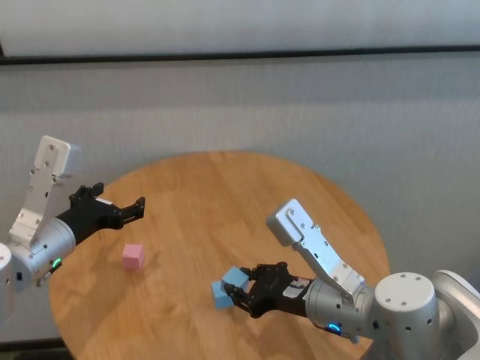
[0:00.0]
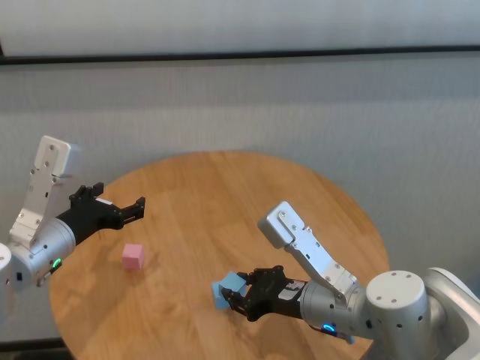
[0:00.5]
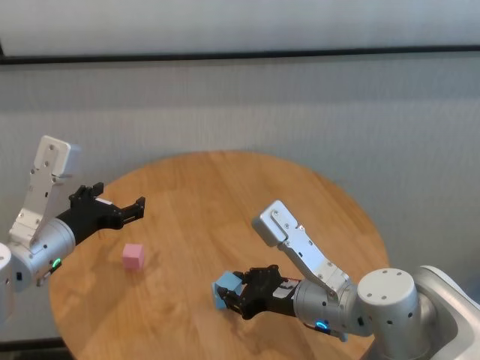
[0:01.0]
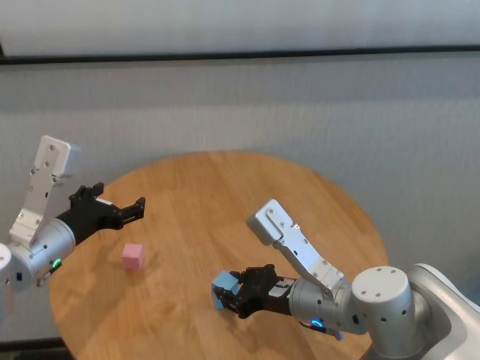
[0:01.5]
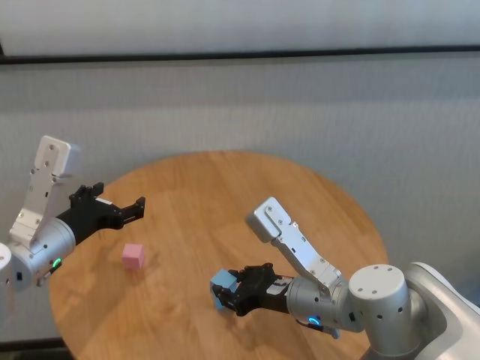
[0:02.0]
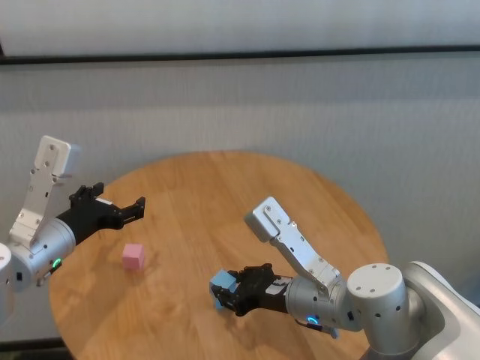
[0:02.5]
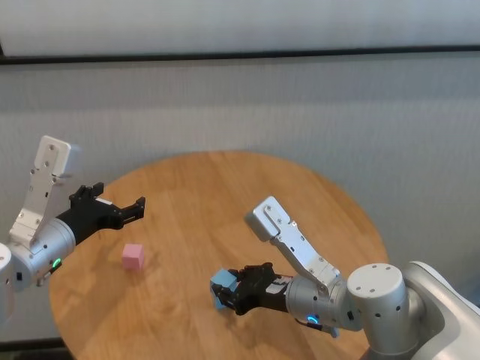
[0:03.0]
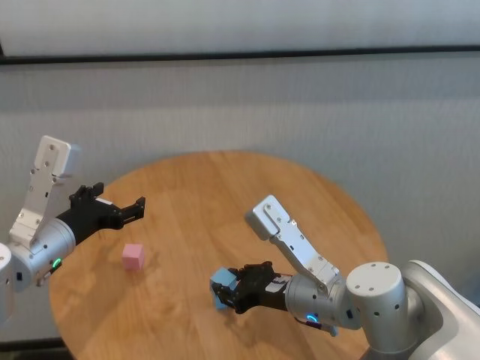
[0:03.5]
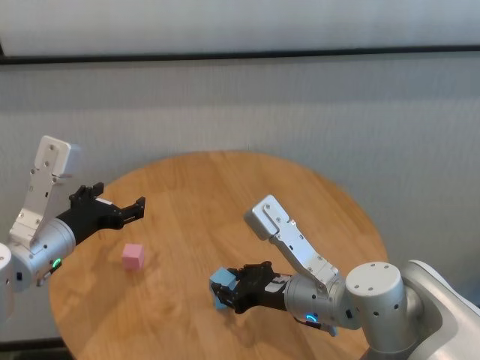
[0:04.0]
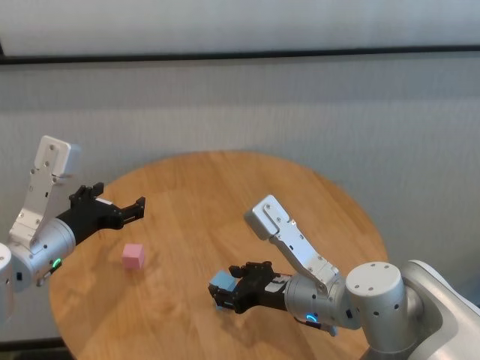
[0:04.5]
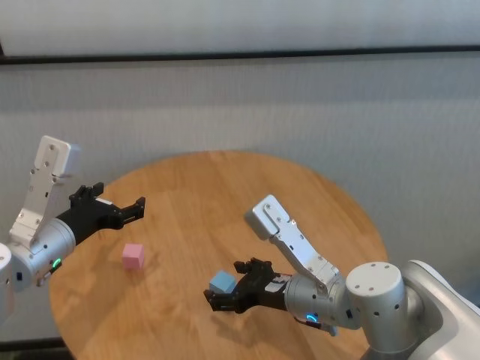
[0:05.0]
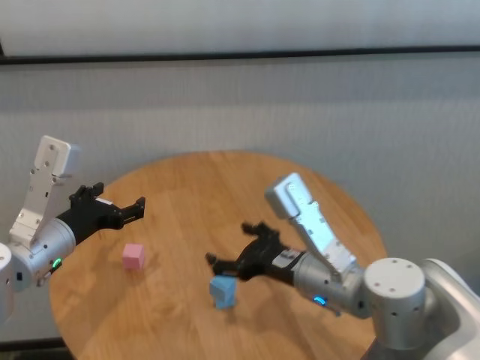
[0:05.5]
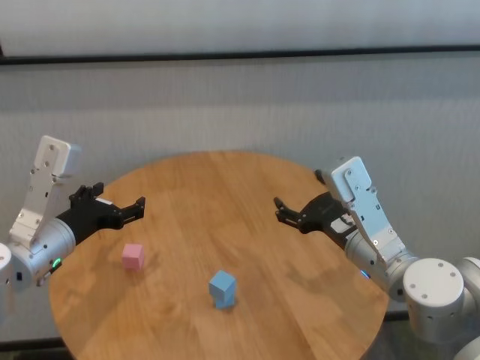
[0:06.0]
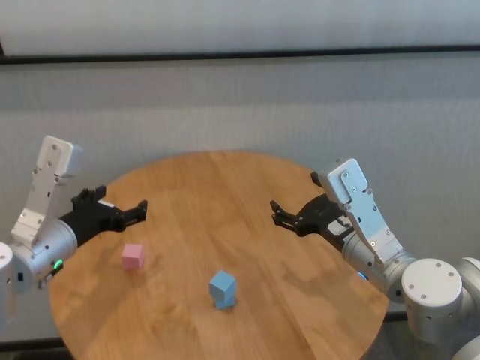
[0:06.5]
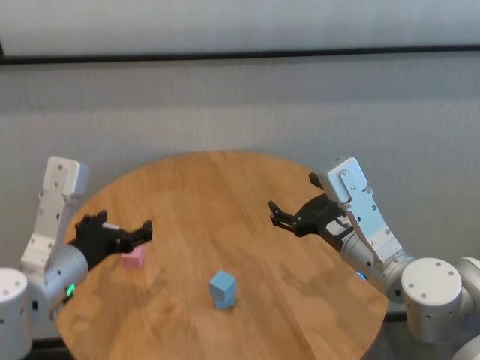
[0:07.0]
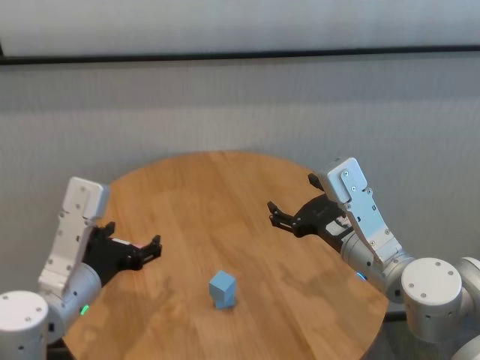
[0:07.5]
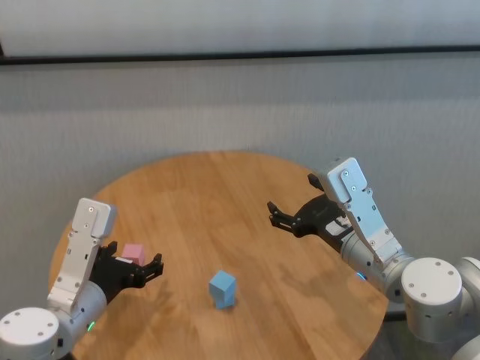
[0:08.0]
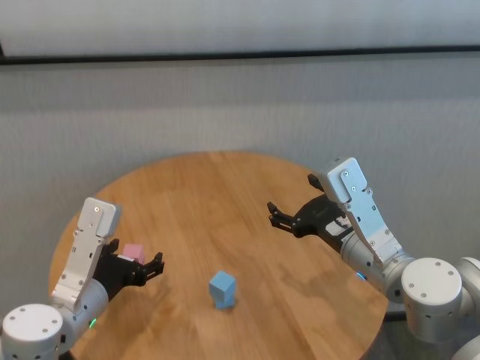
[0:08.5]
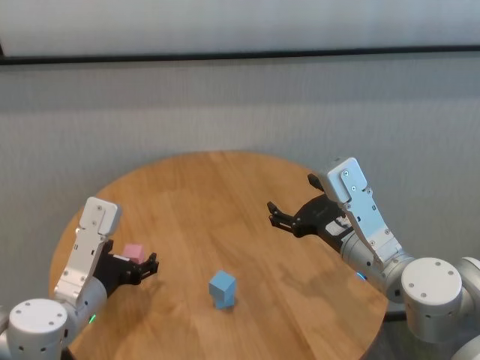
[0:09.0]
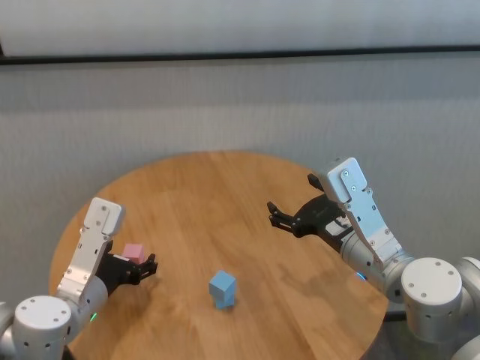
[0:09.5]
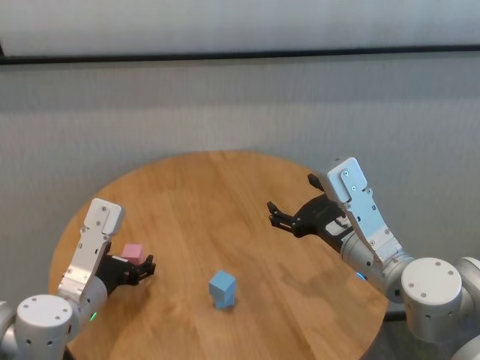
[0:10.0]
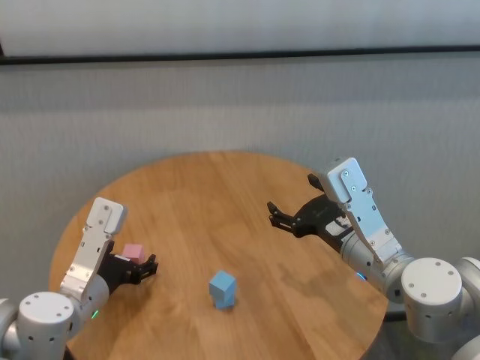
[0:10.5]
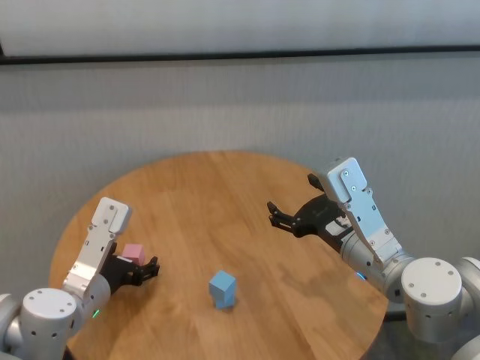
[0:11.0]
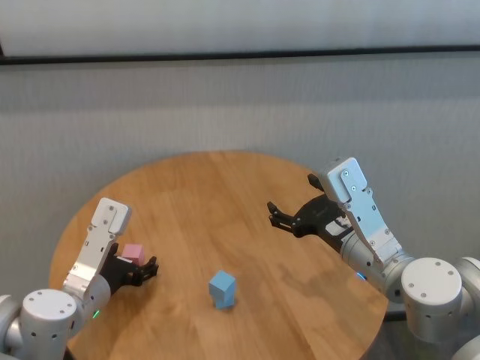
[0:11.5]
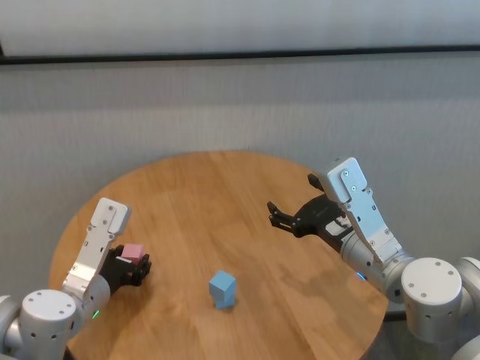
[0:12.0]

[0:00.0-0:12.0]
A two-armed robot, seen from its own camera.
Task of the whole recording: stack building blocks on the table.
Step, 0:00.0 to 0:04.5: Place the blue building block on the blue building blocks with right gripper.

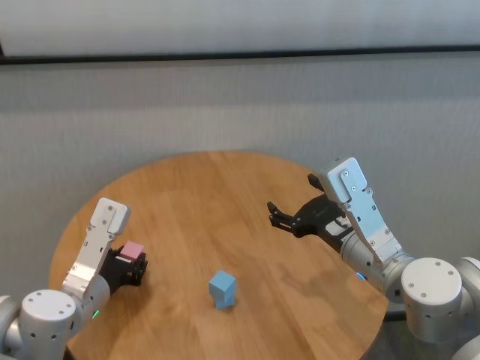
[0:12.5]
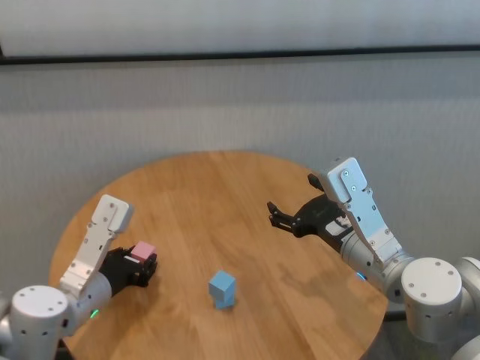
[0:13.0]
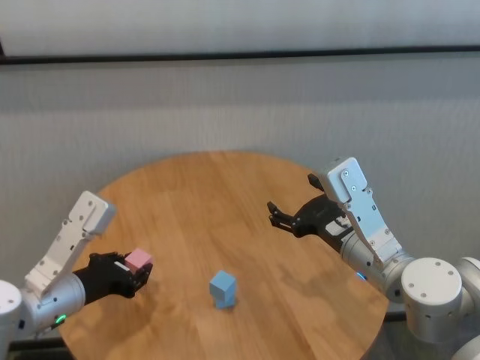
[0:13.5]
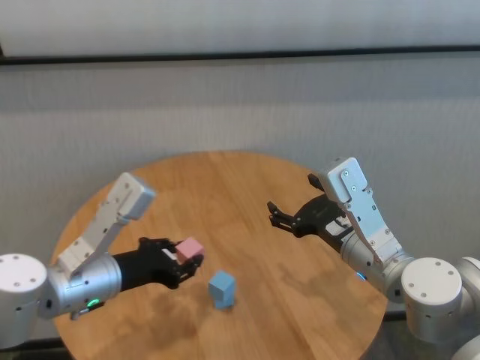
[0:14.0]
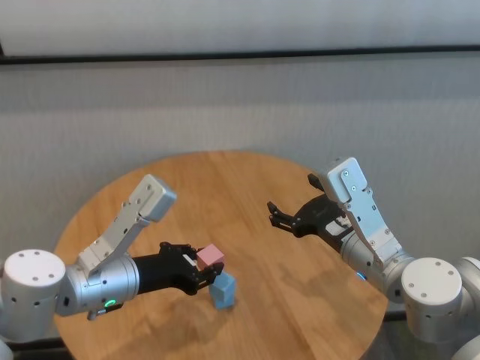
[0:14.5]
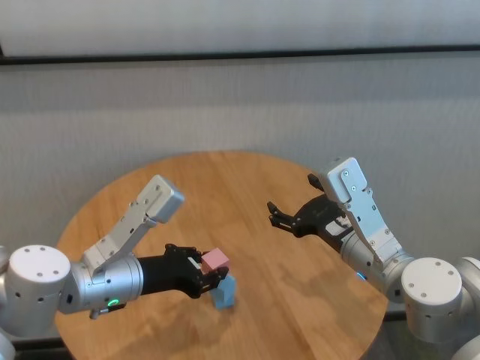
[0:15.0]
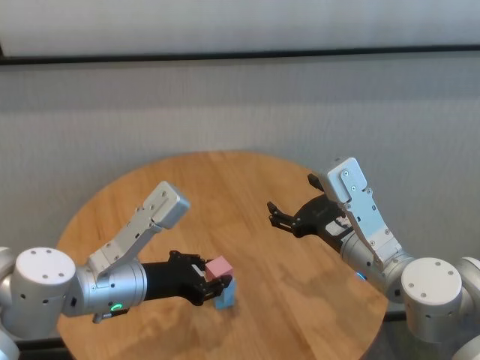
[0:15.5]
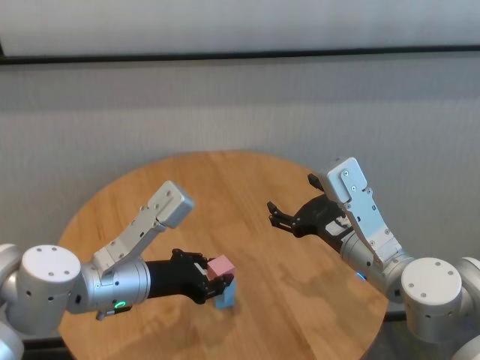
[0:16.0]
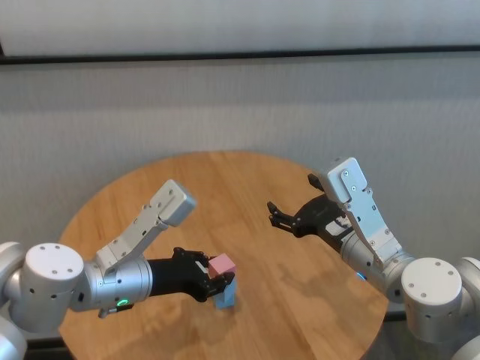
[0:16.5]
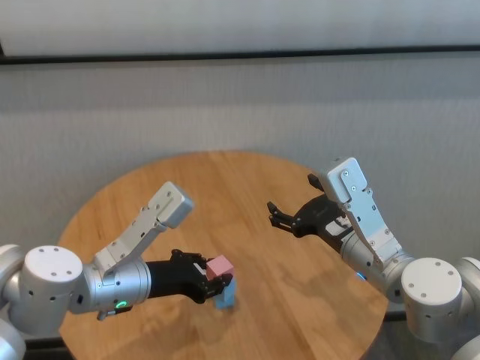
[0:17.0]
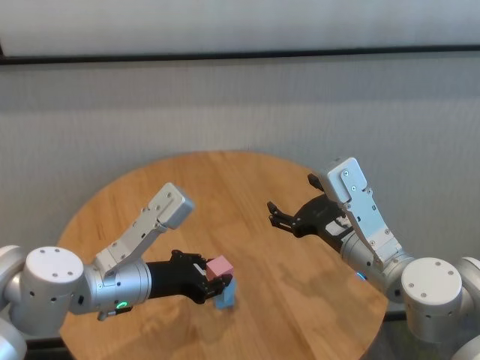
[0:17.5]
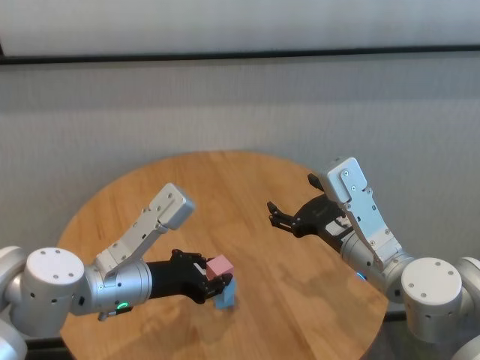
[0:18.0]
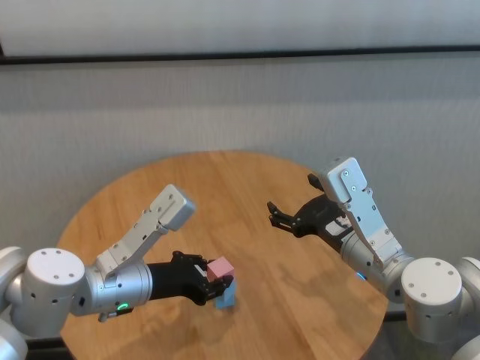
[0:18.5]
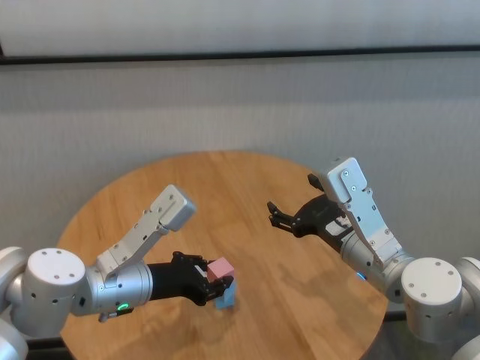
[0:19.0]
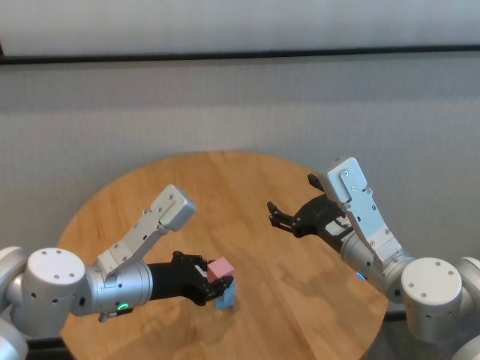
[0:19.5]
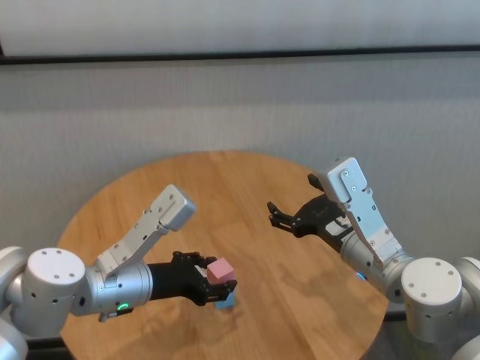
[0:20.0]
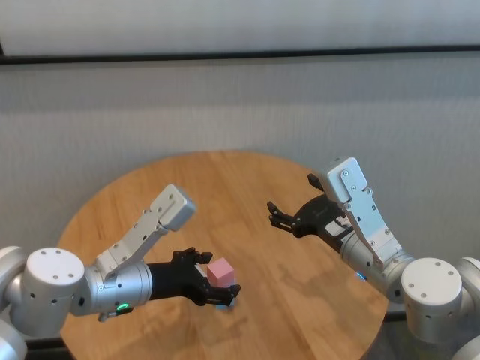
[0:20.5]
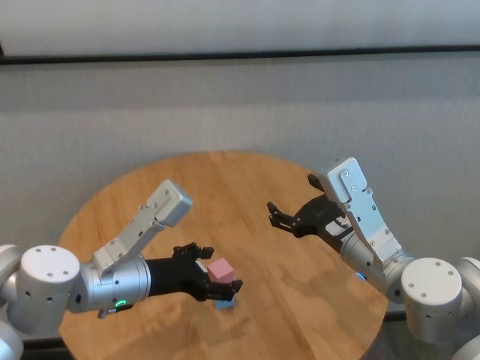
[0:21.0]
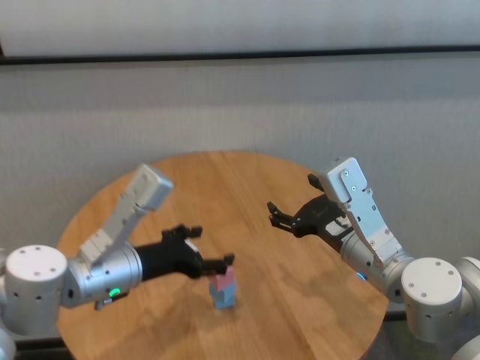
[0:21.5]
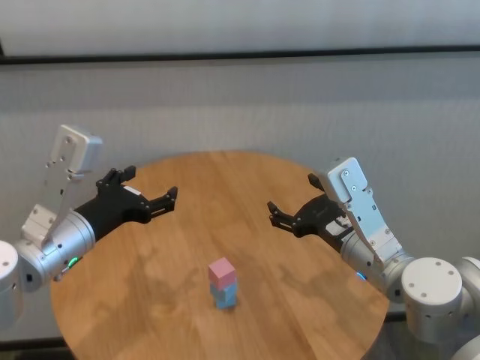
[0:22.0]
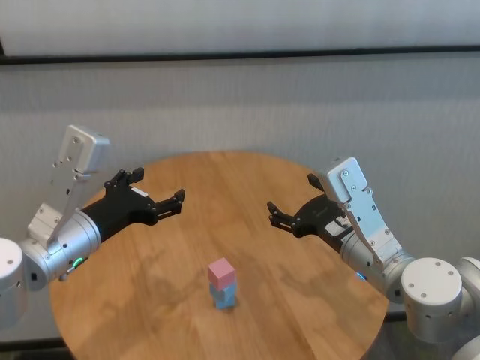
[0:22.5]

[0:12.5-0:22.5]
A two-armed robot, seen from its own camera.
Task of the whole recording: stack building blocks on the table.
Step, 0:13.0 to 0:20.0: Place the pink building block on the blue building blocks with left gripper.

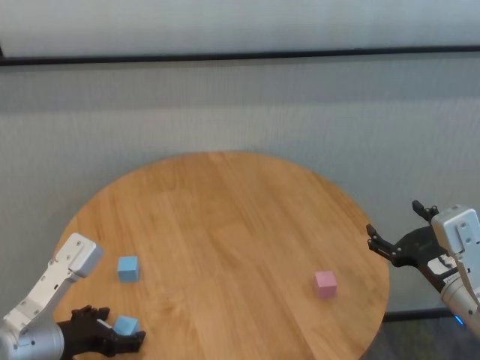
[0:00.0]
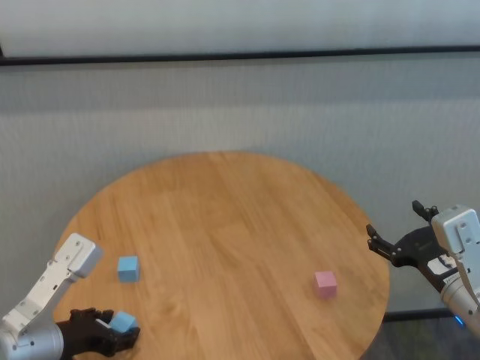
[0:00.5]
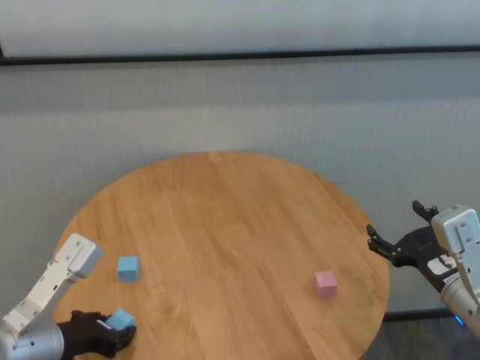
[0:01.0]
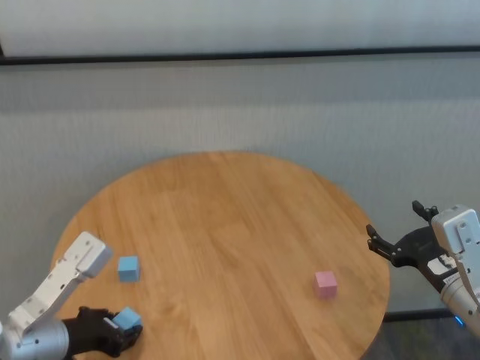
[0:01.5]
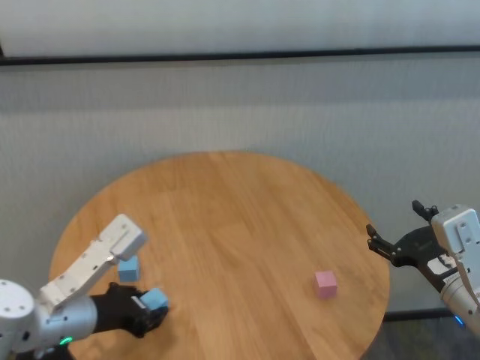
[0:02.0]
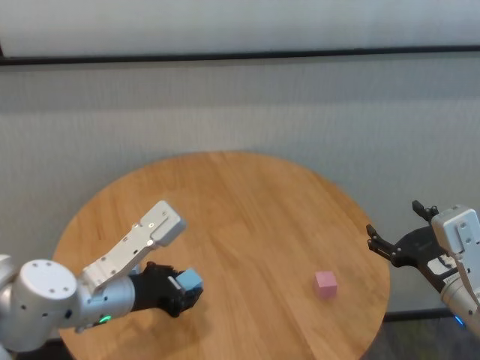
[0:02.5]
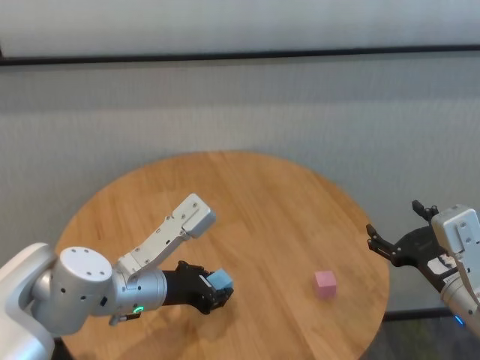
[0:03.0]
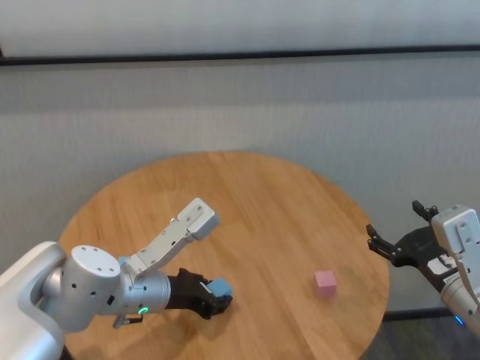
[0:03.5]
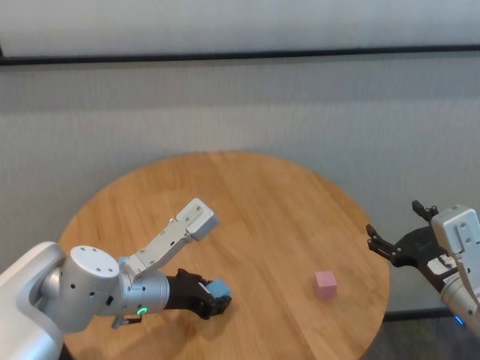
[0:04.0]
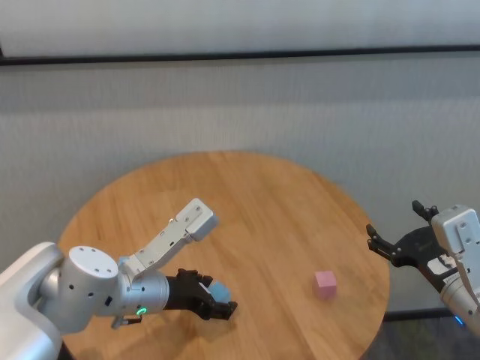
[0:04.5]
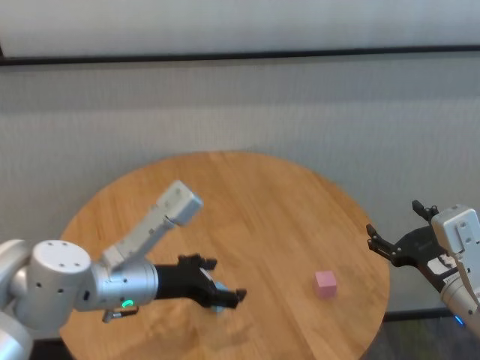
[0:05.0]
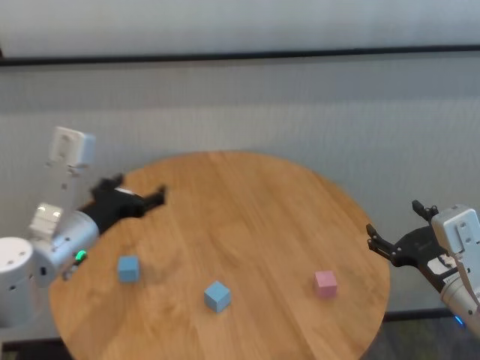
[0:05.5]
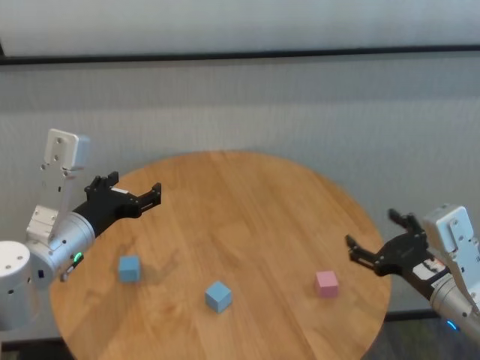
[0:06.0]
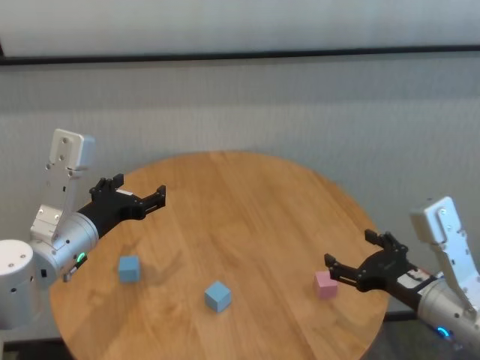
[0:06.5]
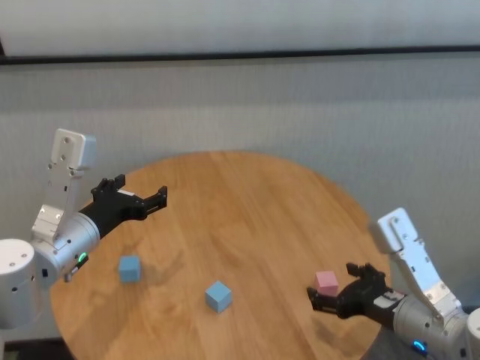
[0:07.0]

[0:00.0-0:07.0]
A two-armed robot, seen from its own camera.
Task of the whole recording: stack building blocks on the table.
Step, 0:01.0 to 0:04.0: Place the blue building block in the center of table with left gripper.
